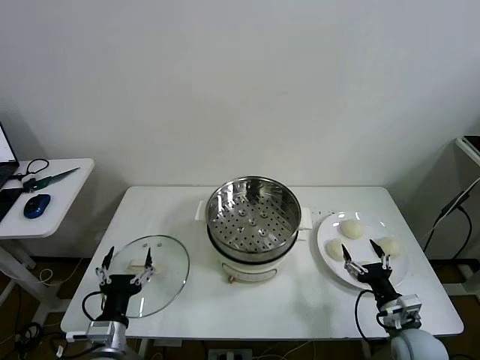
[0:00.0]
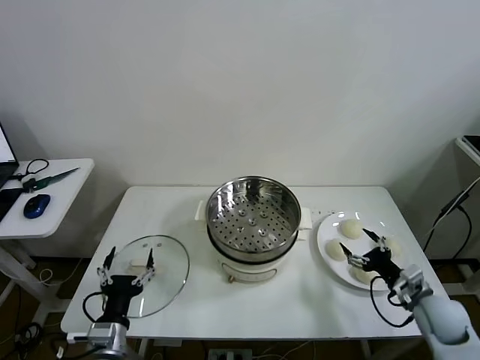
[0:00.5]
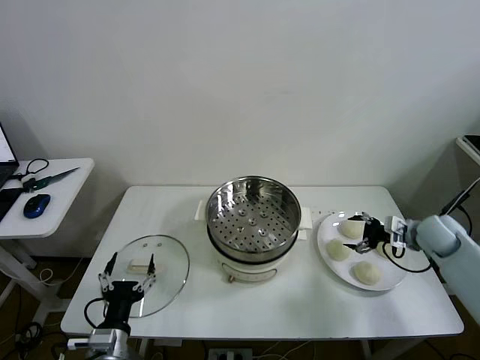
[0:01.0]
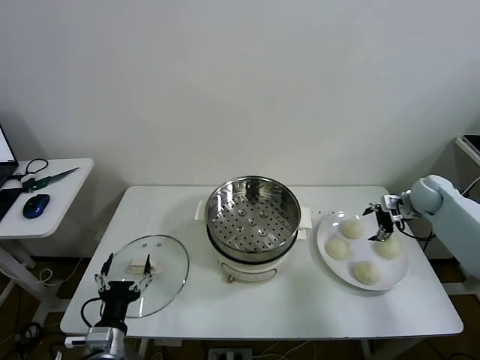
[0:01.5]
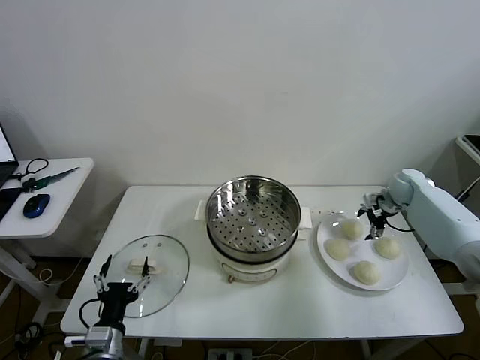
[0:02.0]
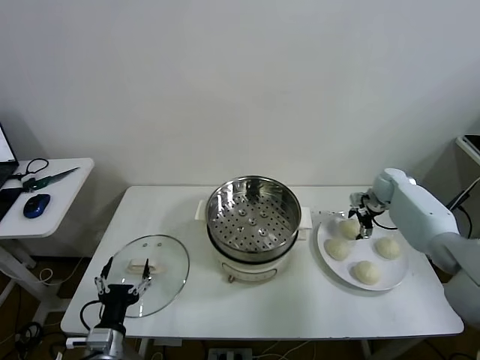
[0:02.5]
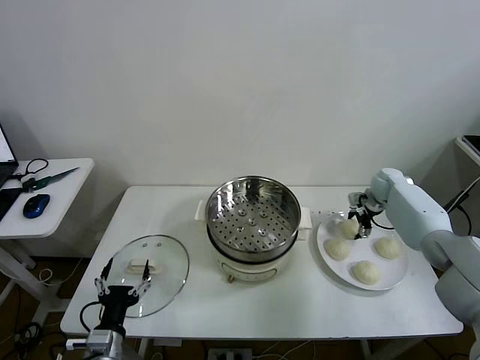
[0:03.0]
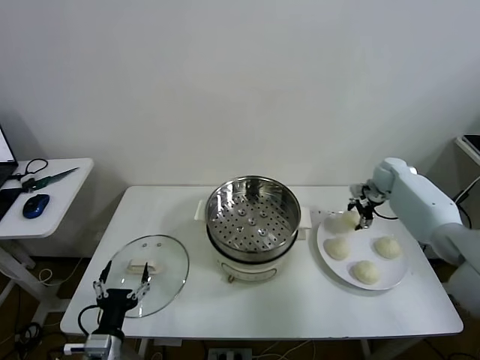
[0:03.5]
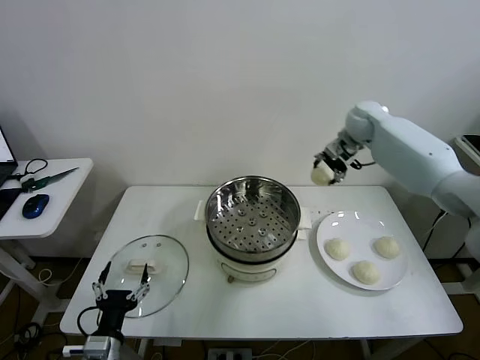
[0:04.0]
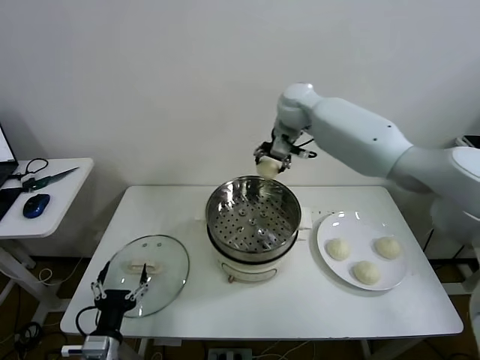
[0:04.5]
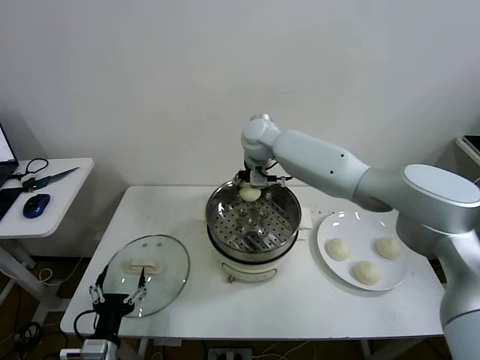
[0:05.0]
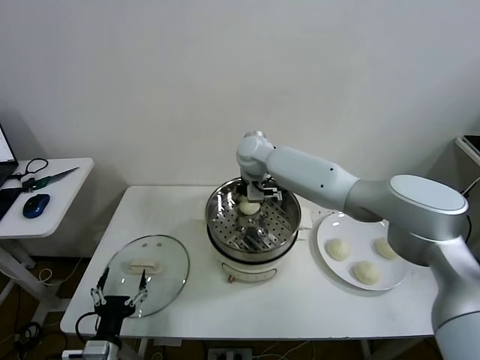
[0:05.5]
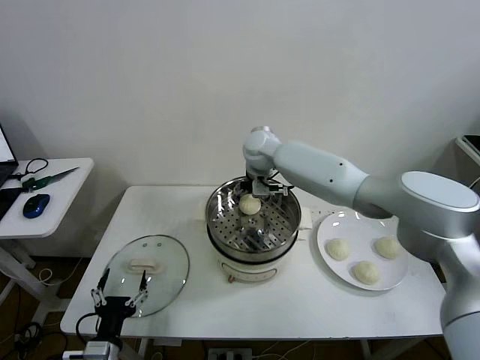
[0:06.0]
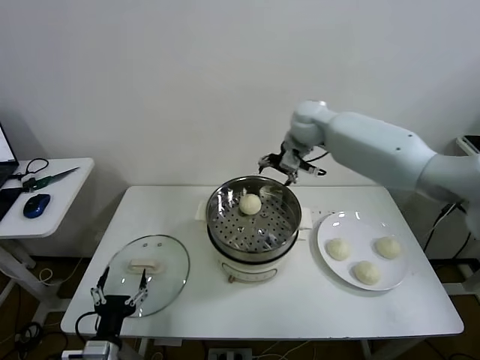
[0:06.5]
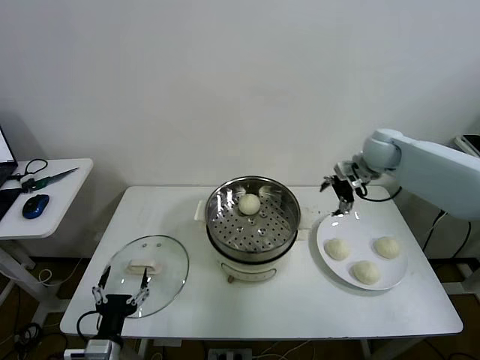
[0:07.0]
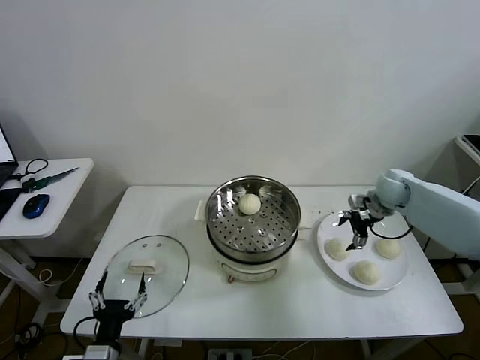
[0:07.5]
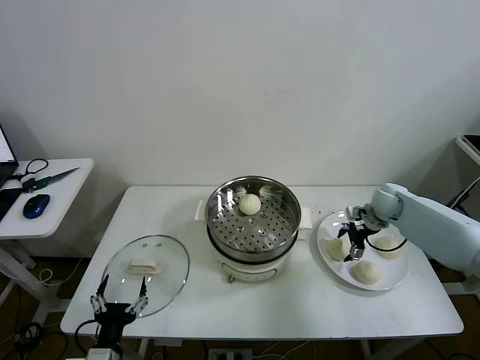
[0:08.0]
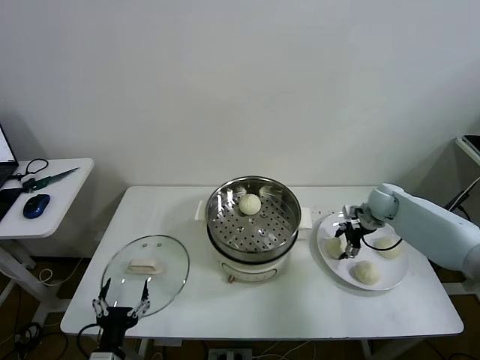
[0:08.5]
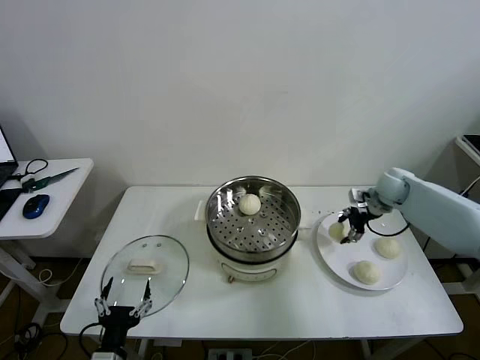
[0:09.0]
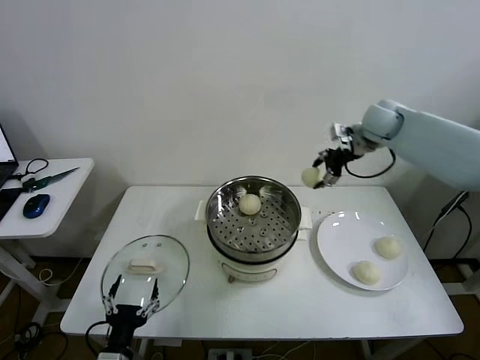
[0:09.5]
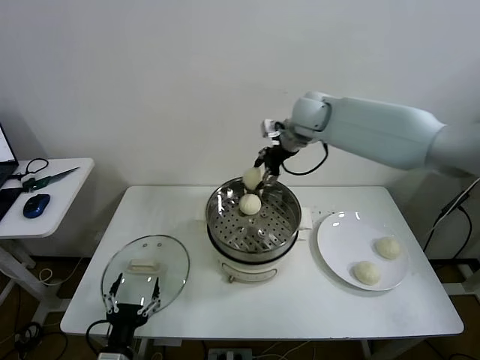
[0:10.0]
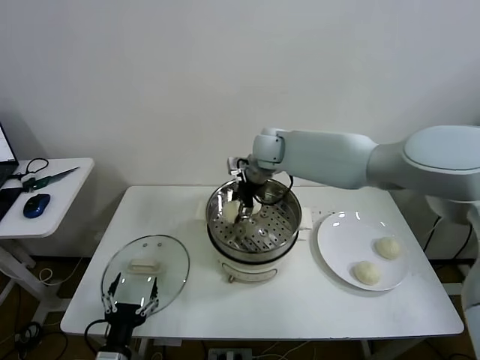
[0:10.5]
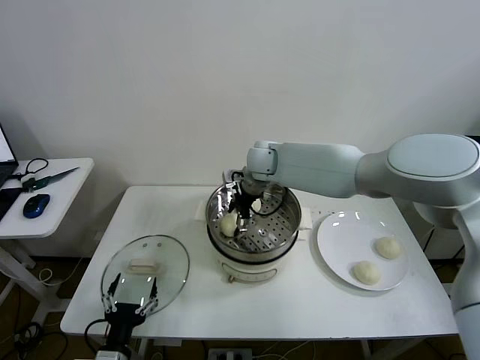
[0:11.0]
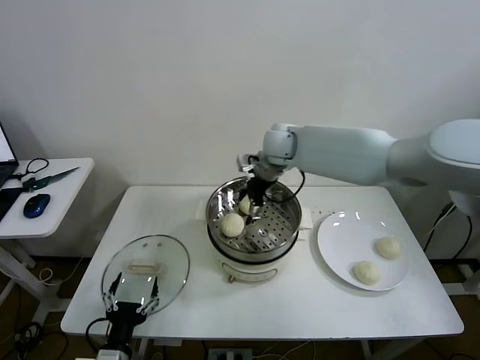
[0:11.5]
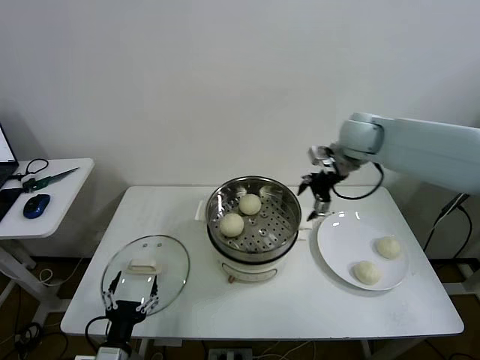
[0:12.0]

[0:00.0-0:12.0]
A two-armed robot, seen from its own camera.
Task of the whole recording: take steamed baozi put them in steamer then cover it.
Step, 0:00.0 to 0:03.0: Grasp the baozi in the plate with right gripper.
Step, 0:03.5 to 0:05.5: Place the baozi on the steamer with right gripper.
Step, 0:06.0 to 0:08.5: Grasp the baozi in the plate with right gripper.
Step, 0:09.0 to 0:11.0: Place the baozi on the steamer with right gripper.
0:02.0 to 0:04.0: The right gripper goes about 25 cm upward and to the left, and closes its fingers.
0:04.0 to 0:06.0: The right gripper goes approximately 20 cm to the left, and opens up.
0:06.0 to 0:08.0: The right gripper heads to the right and downward, covering approximately 40 cm.
0:08.0 to 0:10.0: The right gripper goes roughly 35 cm to the left and upward, and closes up.
0:10.0 to 0:12.0: The right gripper goes about 15 cm to the right, and opens up.

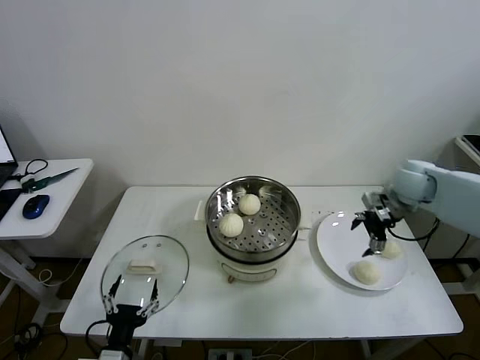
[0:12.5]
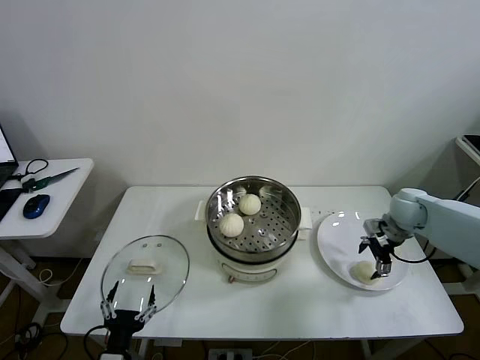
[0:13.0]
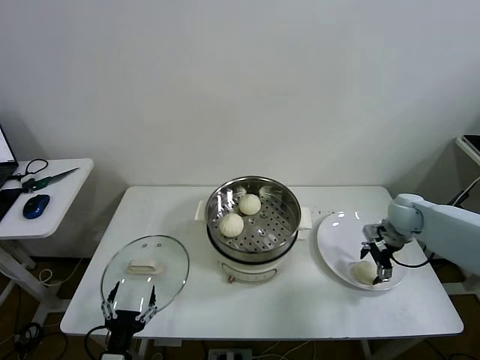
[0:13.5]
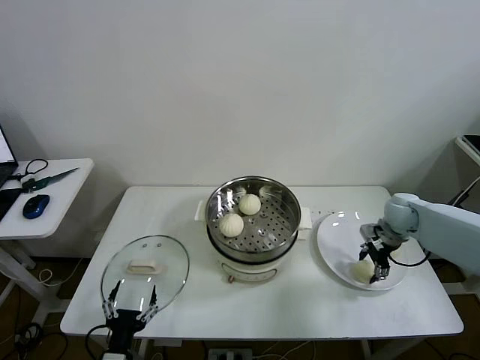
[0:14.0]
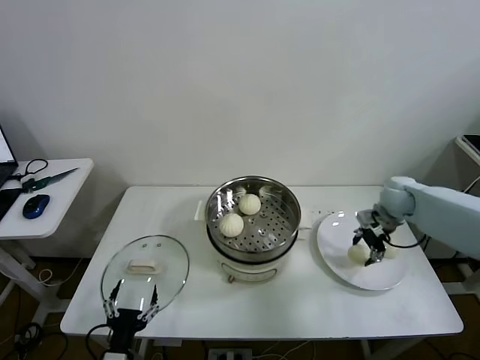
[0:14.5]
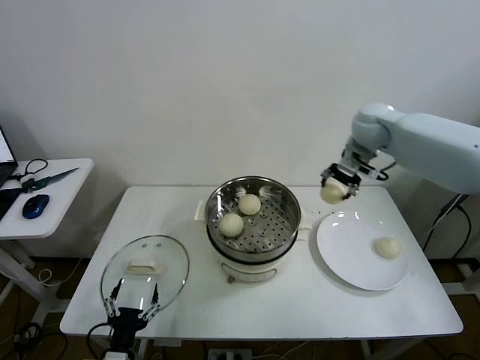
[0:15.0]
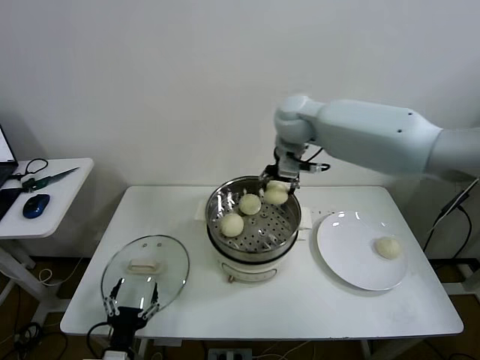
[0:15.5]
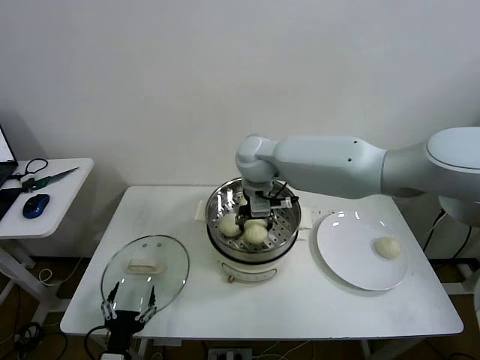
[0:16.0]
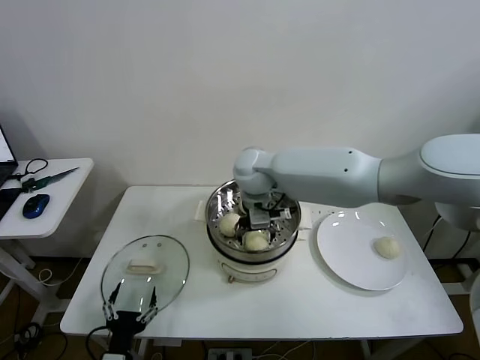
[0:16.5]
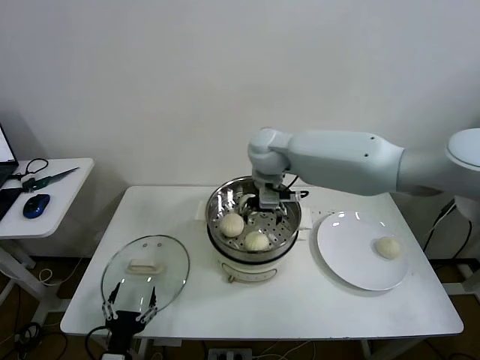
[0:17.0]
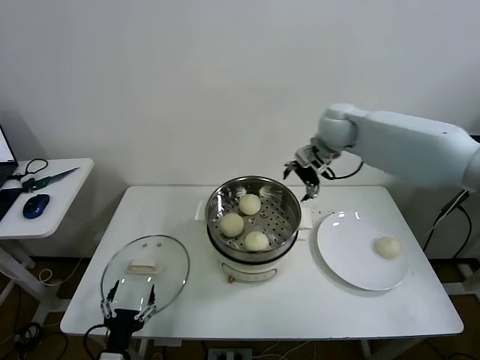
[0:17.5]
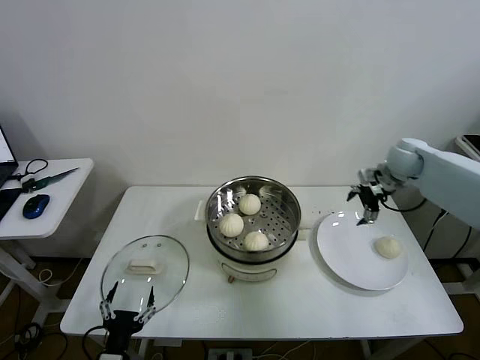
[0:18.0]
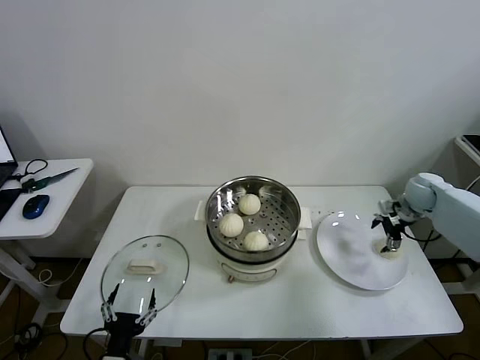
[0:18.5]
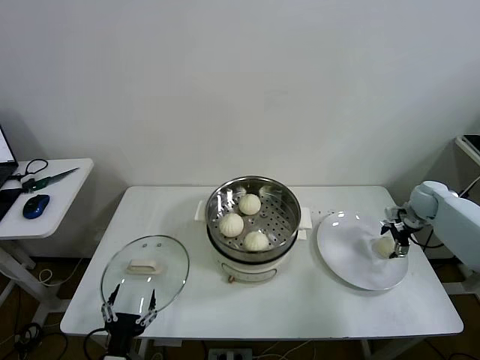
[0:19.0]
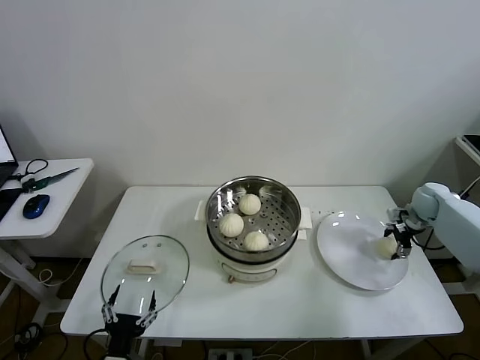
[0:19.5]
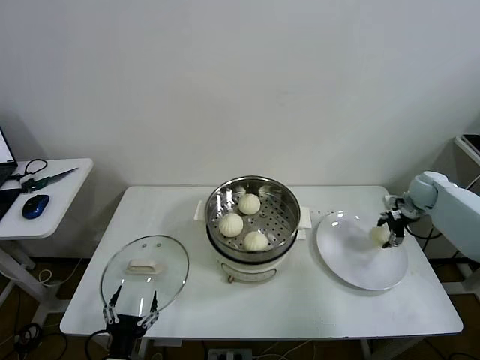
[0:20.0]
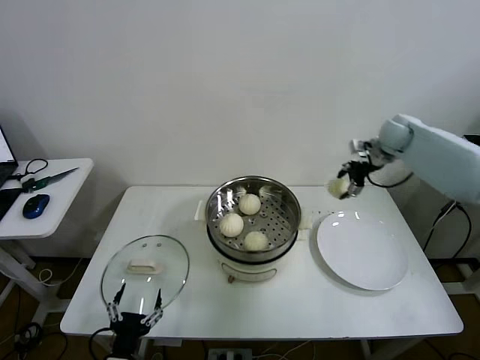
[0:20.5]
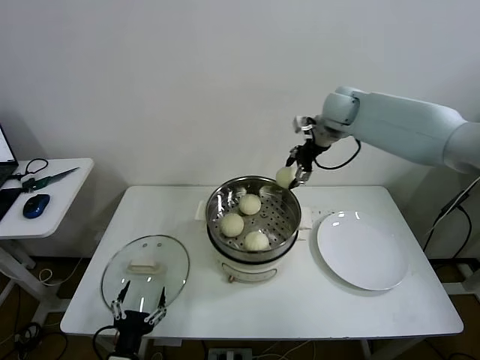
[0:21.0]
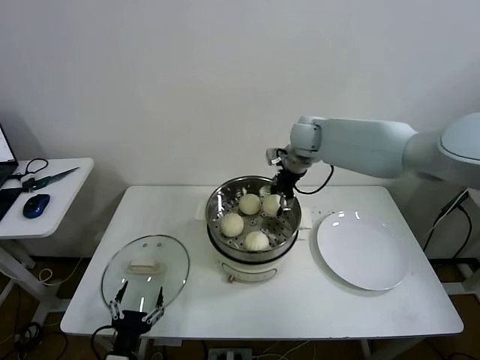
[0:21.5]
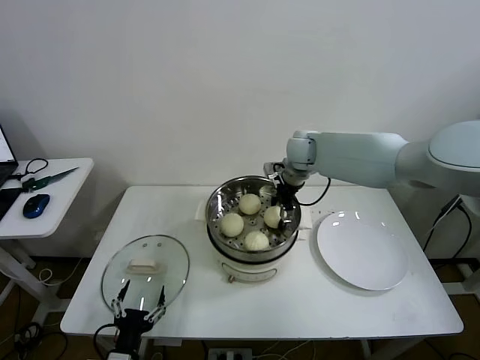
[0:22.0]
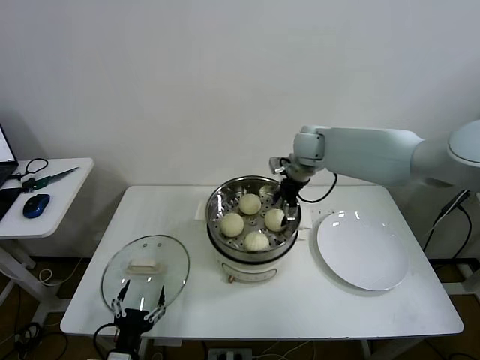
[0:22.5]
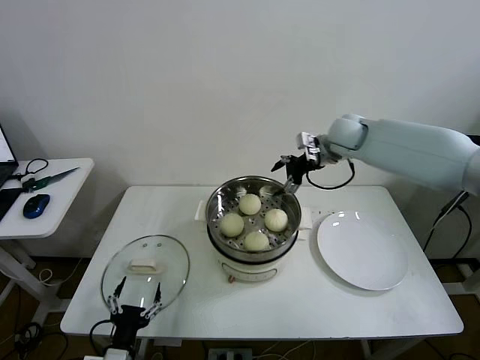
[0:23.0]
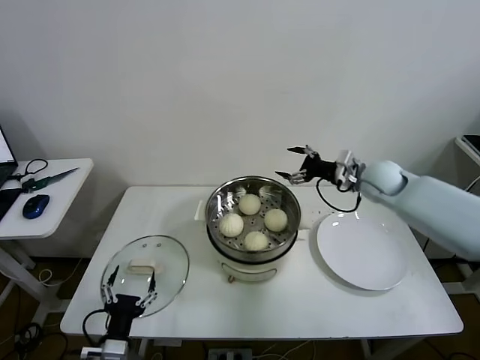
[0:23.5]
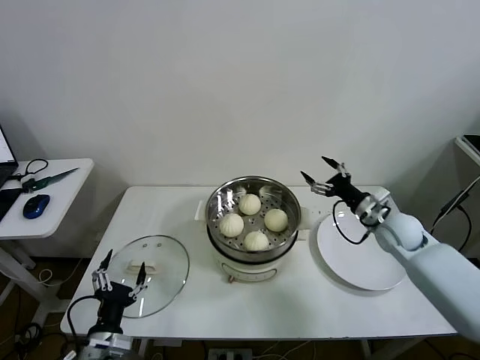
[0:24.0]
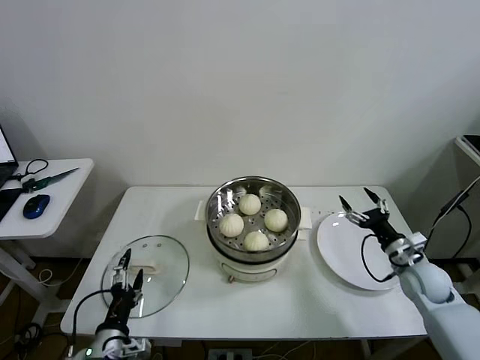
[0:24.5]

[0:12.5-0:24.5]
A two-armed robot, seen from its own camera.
Task of the whole recording: take steamed baozi put them in steamer then cover it.
Step, 0:12.5 to 0:14.0: Grasp the baozi in the plate with right gripper.
Step, 0:14.5 to 0:16.5: Place the baozi on the steamer with right gripper.
Step, 0:17.0 to 0:19.5: Grasp the baozi in the plate with right gripper.
Step, 0:20.0 to 0:22.0: Place the baozi on the steamer with right gripper.
0:12.5 to 0:14.5: The right gripper closes up.
0:14.5 to 0:16.5: The right gripper shifts about 35 cm to the left, and opens its fingers.
0:16.5 to 0:18.5: The right gripper is displaced to the right by some 40 cm.
0:18.5 to 0:20.5: The right gripper travels upward, to the left and forward by about 20 cm, and closes up.
0:20.5 to 0:22.5: The right gripper is displaced to the left by some 20 cm, and opens up.
0:22.5 to 0:24.5: The right gripper heads to the right, backward and downward, covering some 40 cm; the left gripper changes place by about 5 cm.

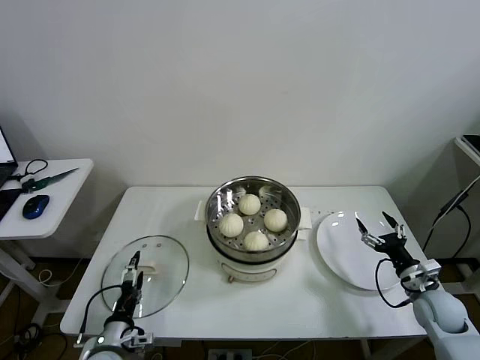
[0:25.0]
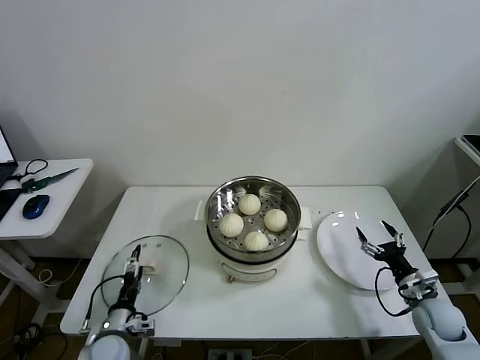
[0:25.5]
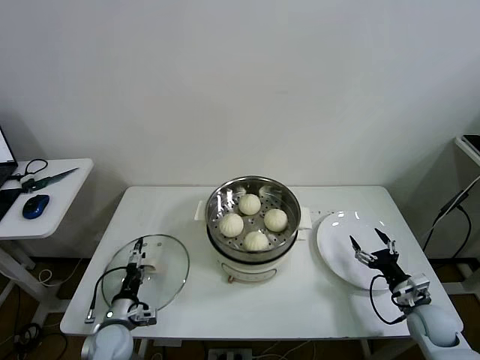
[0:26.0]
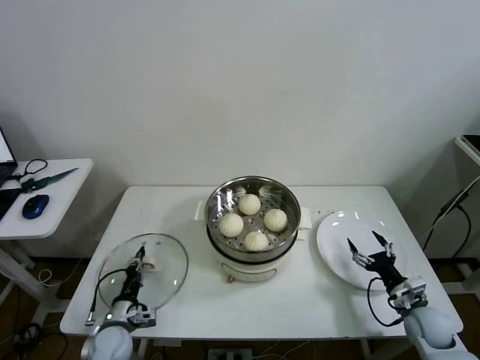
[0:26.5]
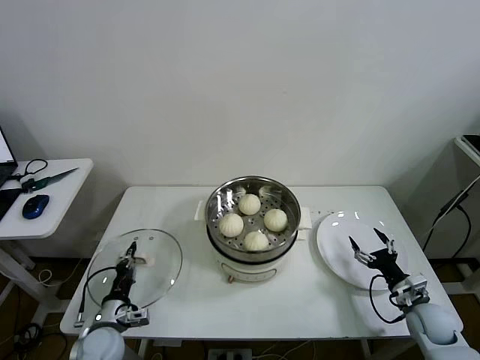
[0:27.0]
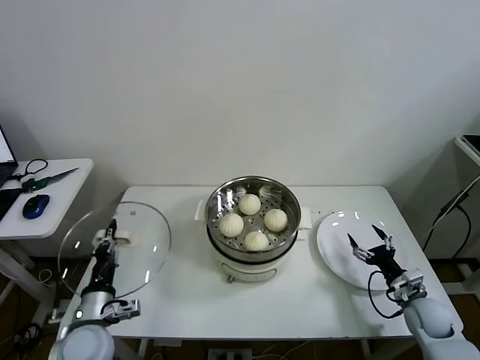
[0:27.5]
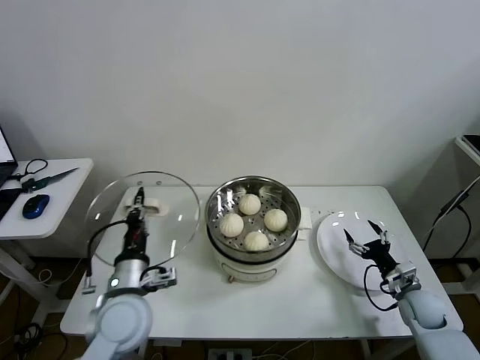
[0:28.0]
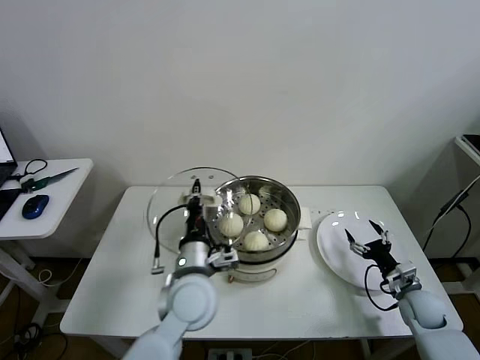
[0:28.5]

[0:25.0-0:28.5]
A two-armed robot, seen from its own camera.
Task of the whole recording: take steamed baozi put them in steamer then cover it.
0:25.0 to 0:27.0: The left gripper heads forward, covering about 5 cm, and closes.
0:27.0 to 0:28.5: The left gripper moves to the right and upward, roughly 30 cm.
